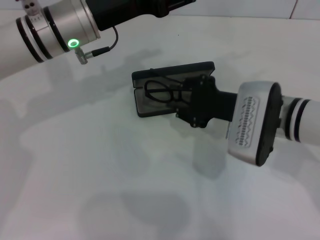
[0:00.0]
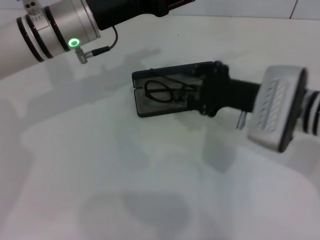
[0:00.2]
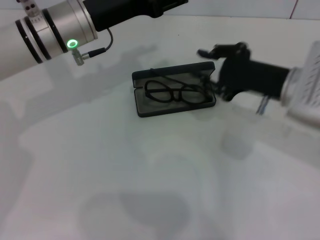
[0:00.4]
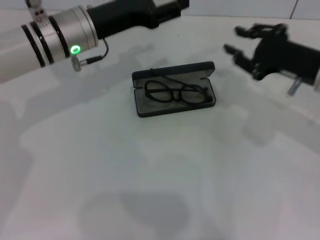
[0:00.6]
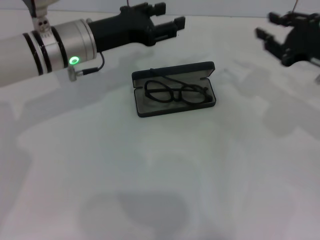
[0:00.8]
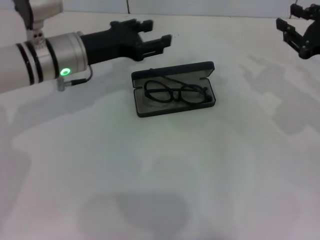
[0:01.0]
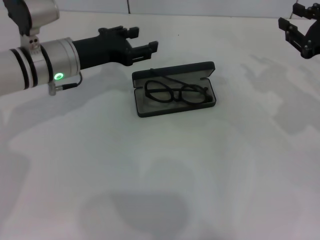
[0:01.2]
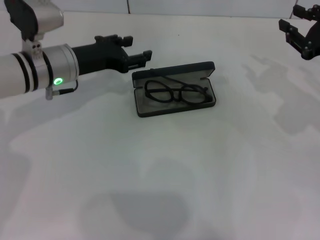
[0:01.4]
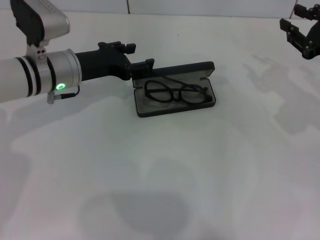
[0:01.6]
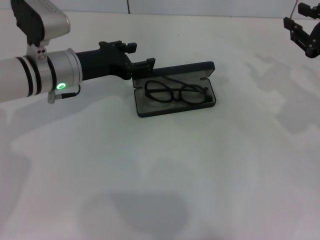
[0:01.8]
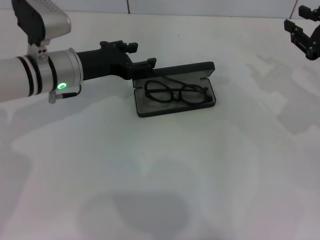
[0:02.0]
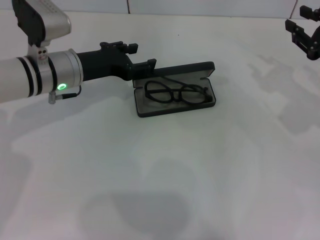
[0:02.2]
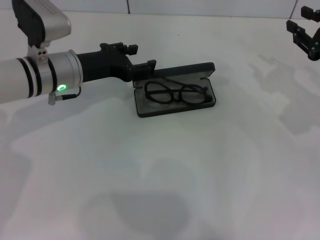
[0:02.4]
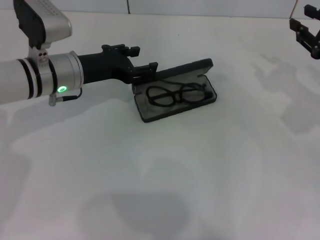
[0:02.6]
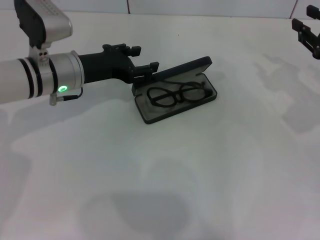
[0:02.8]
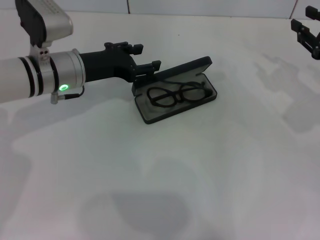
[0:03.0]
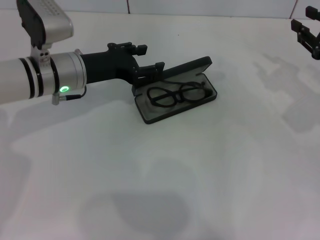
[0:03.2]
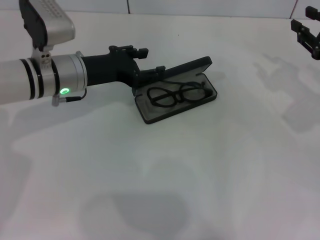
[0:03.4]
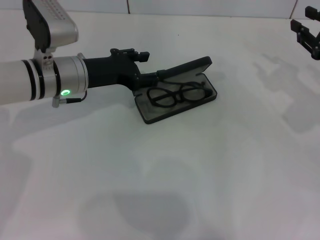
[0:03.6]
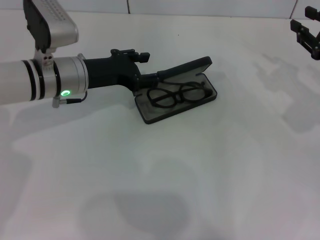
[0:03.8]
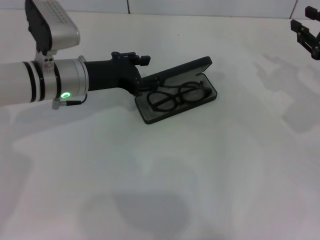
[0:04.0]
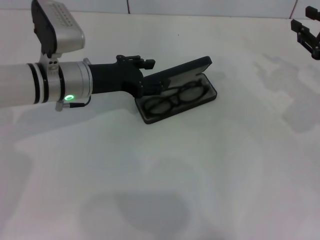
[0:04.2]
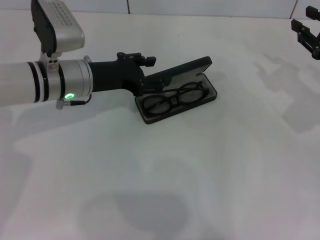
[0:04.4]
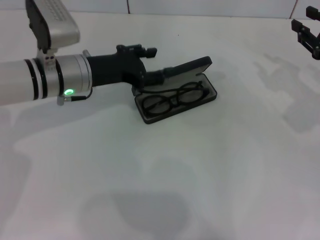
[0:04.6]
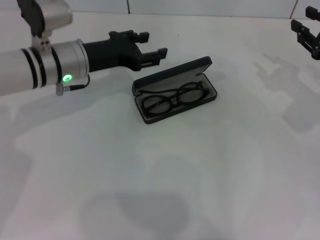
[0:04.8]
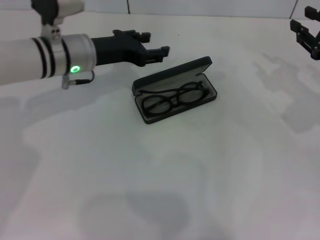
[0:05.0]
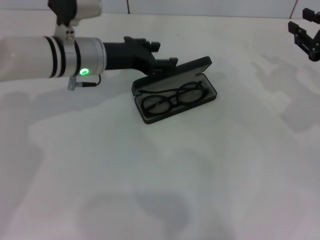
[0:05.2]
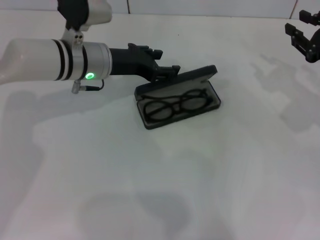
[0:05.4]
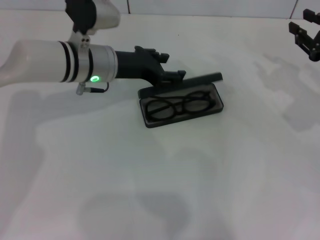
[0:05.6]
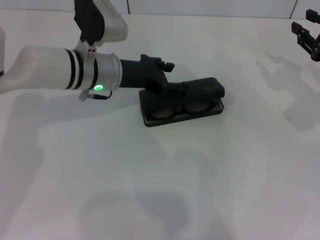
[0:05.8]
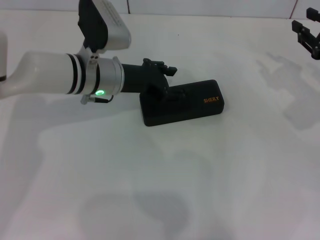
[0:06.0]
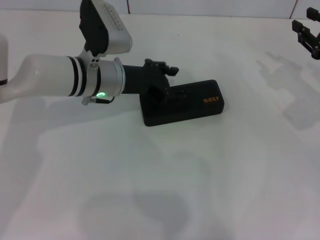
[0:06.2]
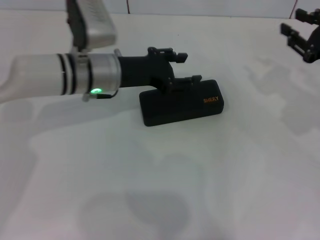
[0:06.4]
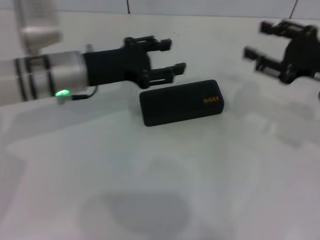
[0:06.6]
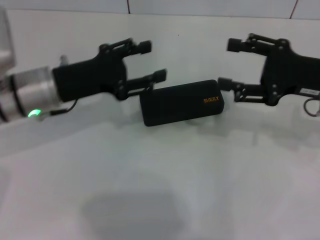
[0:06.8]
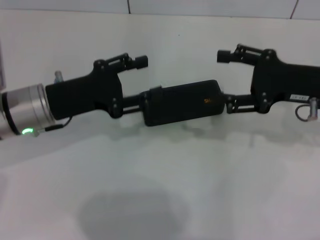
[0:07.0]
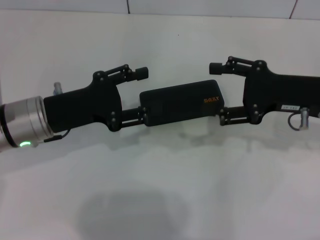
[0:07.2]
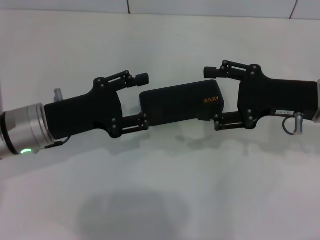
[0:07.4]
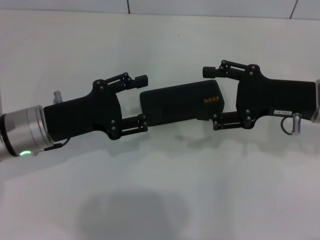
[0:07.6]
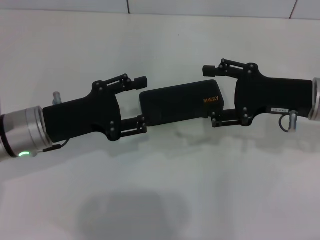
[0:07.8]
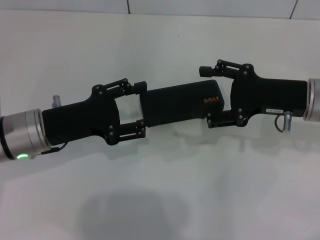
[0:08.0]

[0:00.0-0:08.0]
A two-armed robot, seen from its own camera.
Step, 0:00.0 to 0:04.2: Put the glasses into the case with your right hand.
Step, 0:04.6 to 0:06.2: Close the glasses case with your left hand.
0:00.0 to 0:01.6: The right gripper travels to the right by some 15 cm; the left gripper shifts approximately 5 cm downward.
0:01.6 to 0:04.8: The grippers make only small movements.
0:04.8 to 0:06.4: The grippers stay close to where they were, moving slightly.
0:06.4 to 0:08.0: The right gripper travels to the left by about 10 cm, and opens, while the left gripper heads backward and to the left, covering roughly 15 cm.

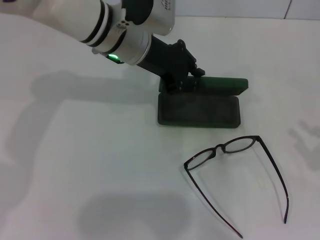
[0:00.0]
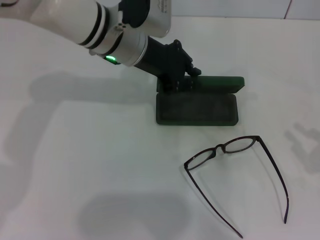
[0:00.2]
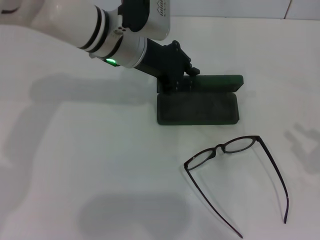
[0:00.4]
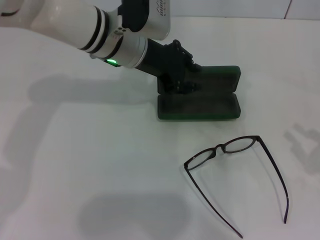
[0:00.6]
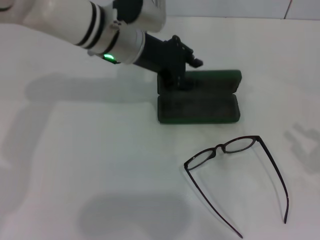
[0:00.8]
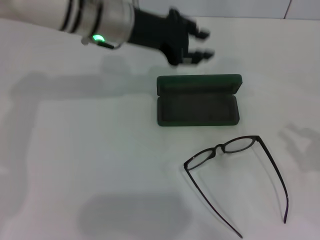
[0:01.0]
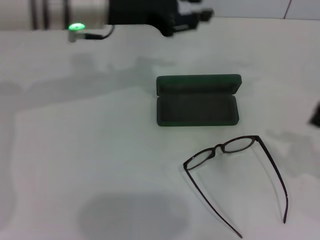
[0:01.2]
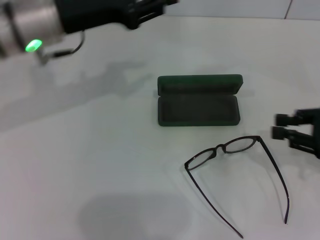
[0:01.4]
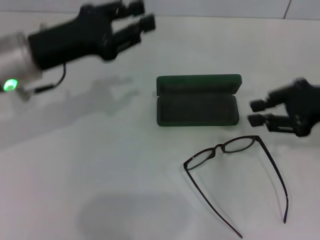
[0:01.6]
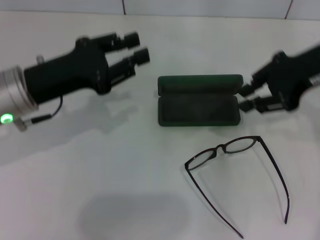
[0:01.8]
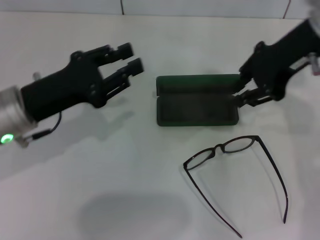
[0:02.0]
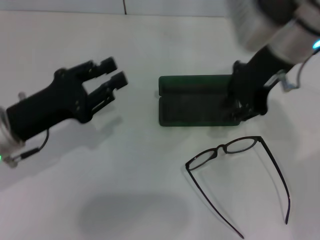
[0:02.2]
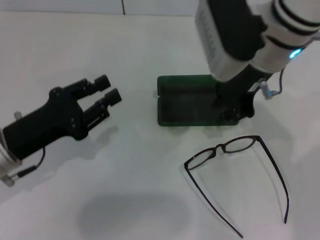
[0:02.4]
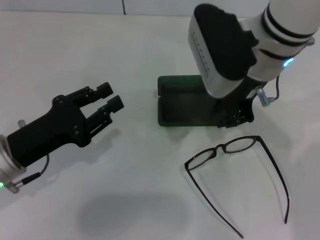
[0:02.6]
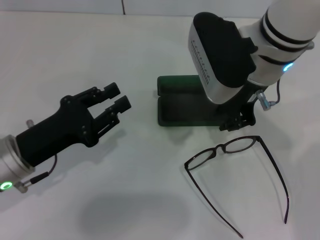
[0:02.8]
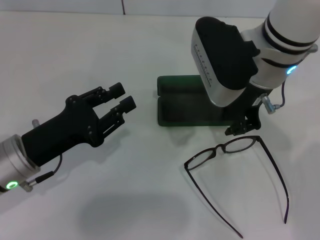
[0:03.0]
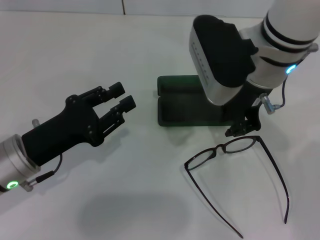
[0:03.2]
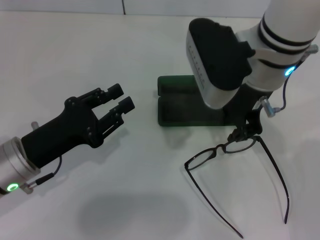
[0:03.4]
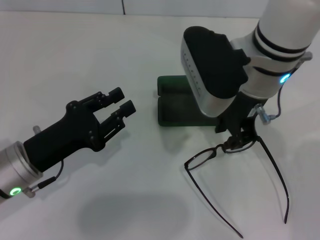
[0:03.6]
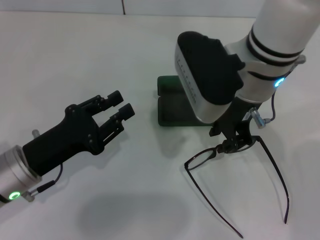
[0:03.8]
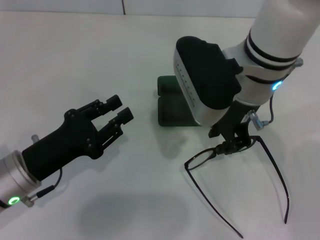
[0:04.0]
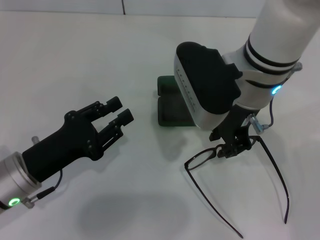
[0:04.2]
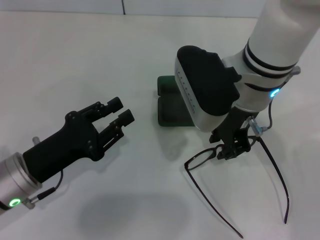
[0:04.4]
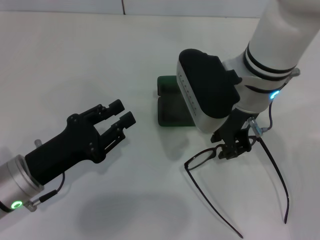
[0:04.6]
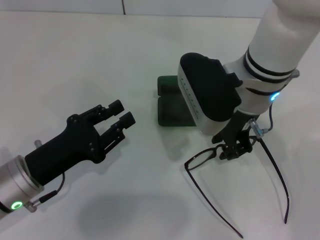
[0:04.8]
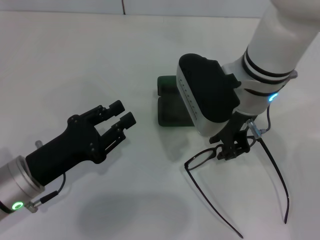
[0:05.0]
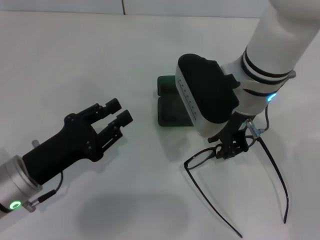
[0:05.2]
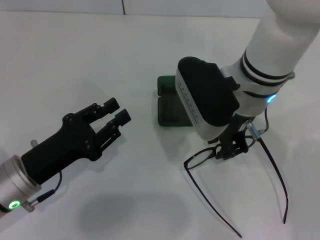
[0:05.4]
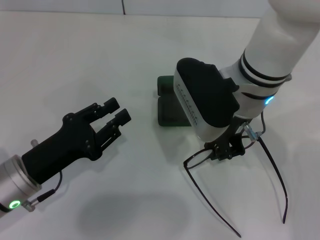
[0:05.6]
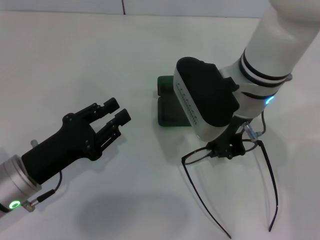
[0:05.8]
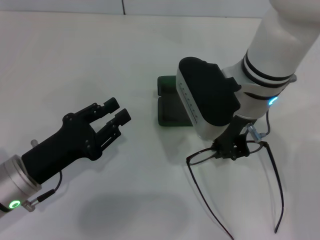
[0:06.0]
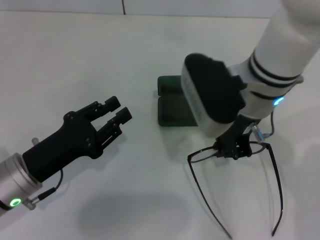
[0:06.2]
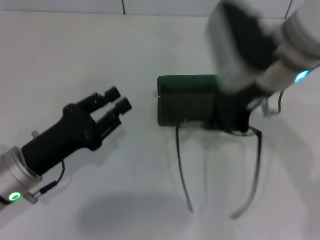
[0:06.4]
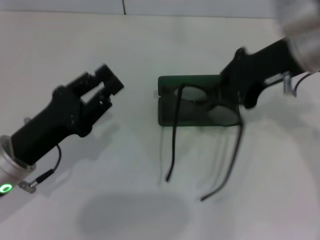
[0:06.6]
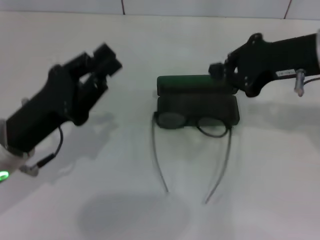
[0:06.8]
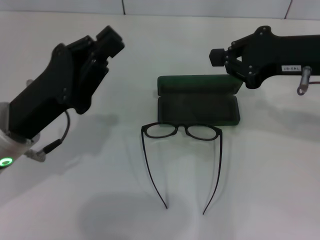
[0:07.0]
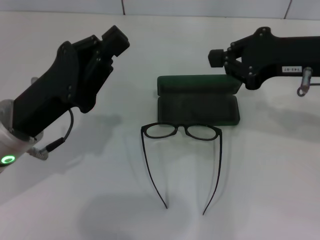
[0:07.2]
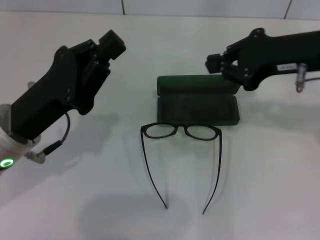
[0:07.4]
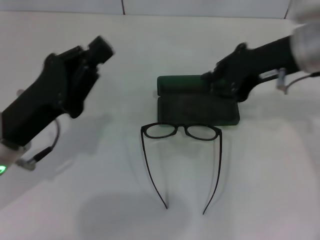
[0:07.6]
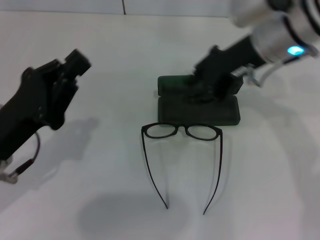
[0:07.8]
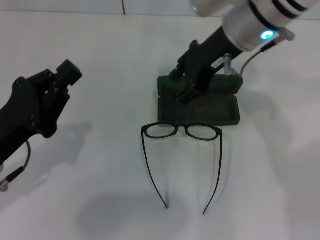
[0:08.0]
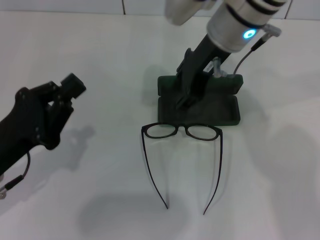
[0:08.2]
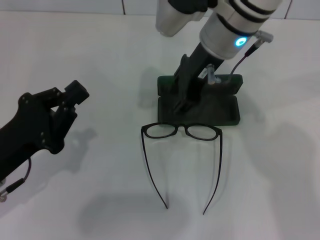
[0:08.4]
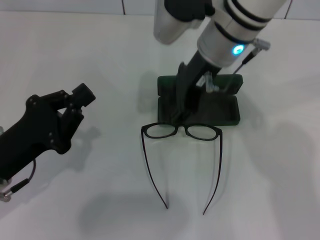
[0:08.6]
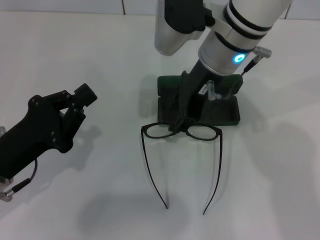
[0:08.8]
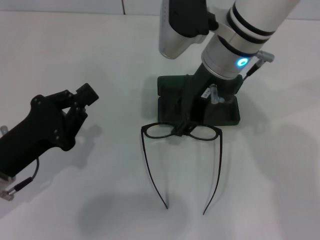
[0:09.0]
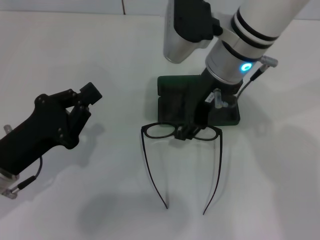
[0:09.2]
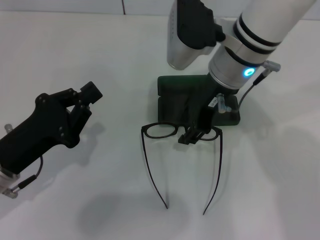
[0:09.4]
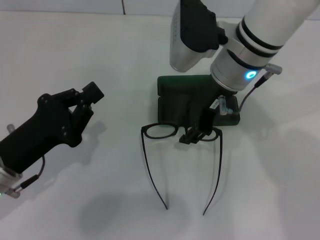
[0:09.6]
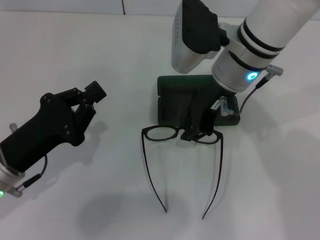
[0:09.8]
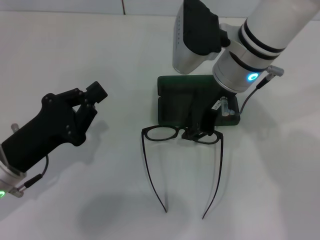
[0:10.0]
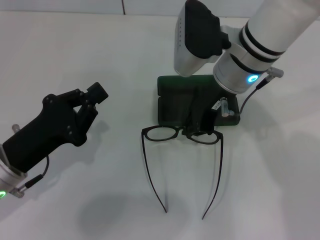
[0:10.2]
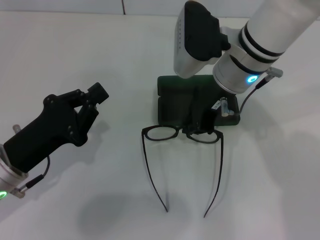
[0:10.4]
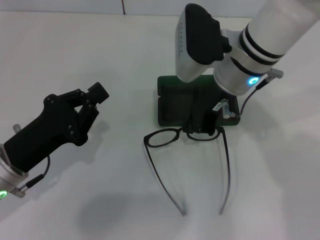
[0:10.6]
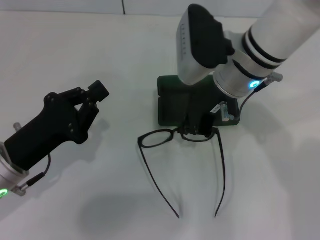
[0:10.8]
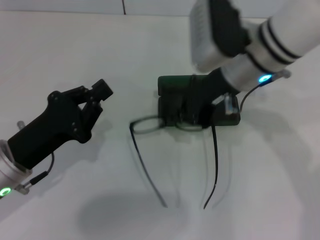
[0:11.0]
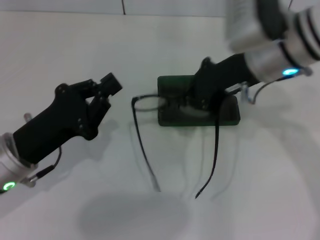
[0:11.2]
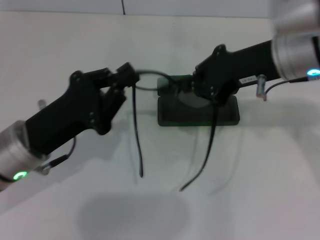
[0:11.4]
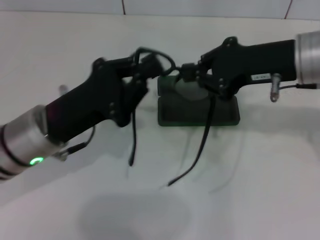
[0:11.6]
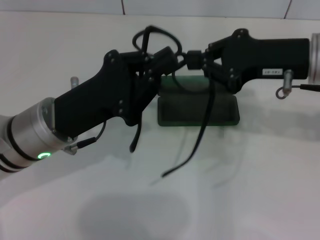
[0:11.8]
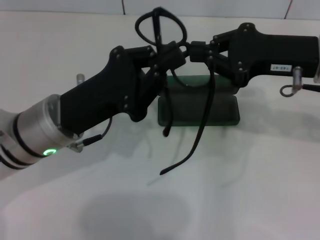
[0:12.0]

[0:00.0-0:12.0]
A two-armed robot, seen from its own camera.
Step, 0:00.8 to 0:10.6: Grab the eyeglass frame with your right hand.
0:00.0 to 0:01.6: The right gripper is displaced forward, to the left and upward by approximately 20 cm; the left gripper moves to the left and backward, roughly 15 cm.
0:01.6 to 0:03.0: The left gripper is displaced downward and backward by roughly 15 cm. Meanwhile the right gripper shifts about 15 cm to the left.
0:04.4 to 0:06.0: The grippers make only small movements.
0:06.0 to 0:07.6: The left gripper moves upward, roughly 5 cm, and closes; the right gripper is displaced to the right by some 10 cm.
0:07.6 to 0:09.0: The left gripper shifts by approximately 5 cm, while the right gripper heads to the left, covering about 10 cm, and opens its fingers.
0:09.0 to 0:10.4: The right gripper closes.
0:10.4 to 0:12.0: The right gripper heads to the right, covering roughly 15 cm; the left gripper heads to the right, upward and forward, covering some 10 cm.

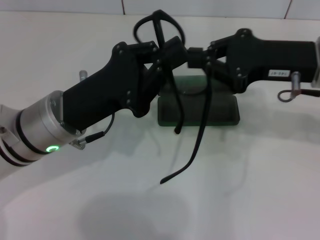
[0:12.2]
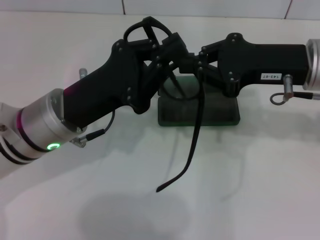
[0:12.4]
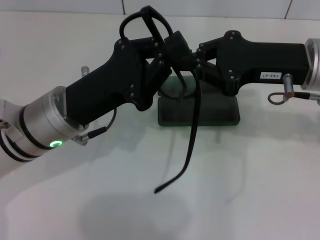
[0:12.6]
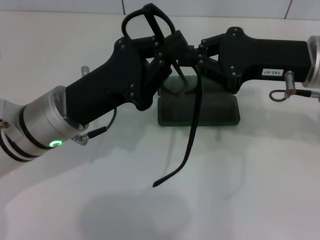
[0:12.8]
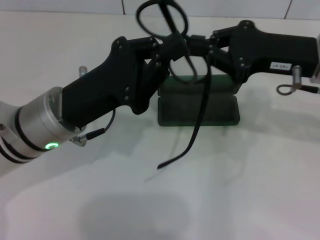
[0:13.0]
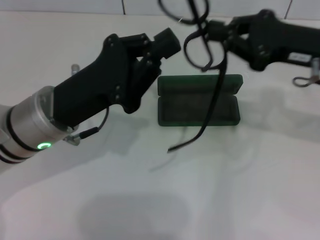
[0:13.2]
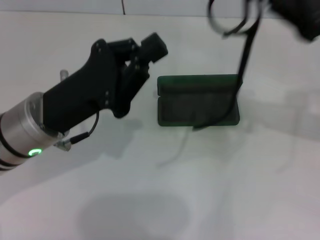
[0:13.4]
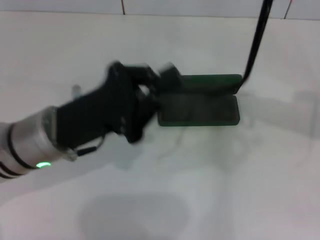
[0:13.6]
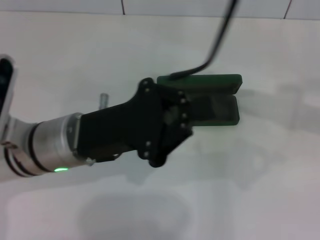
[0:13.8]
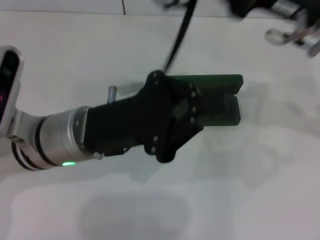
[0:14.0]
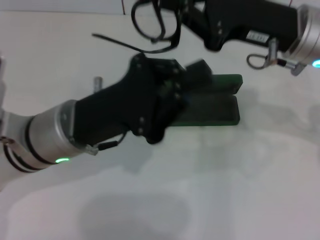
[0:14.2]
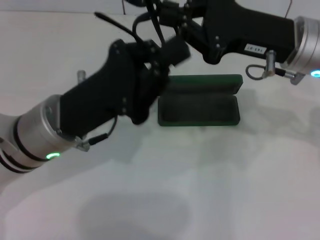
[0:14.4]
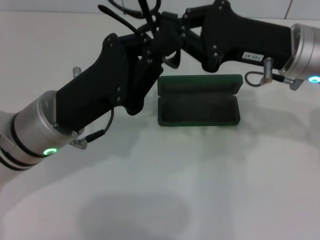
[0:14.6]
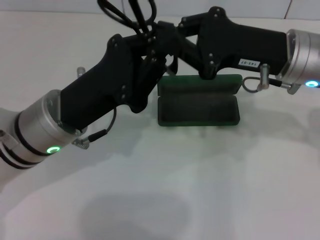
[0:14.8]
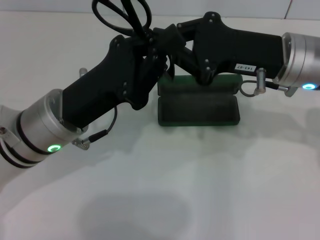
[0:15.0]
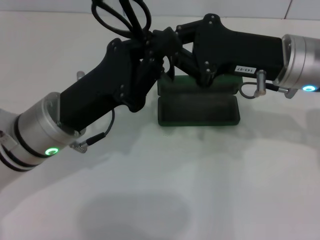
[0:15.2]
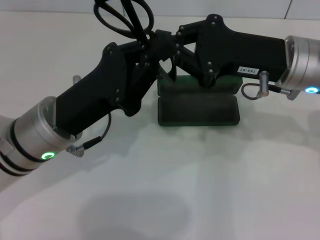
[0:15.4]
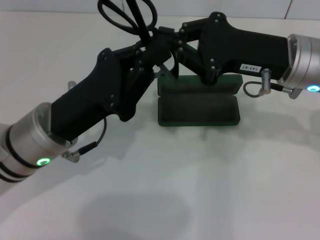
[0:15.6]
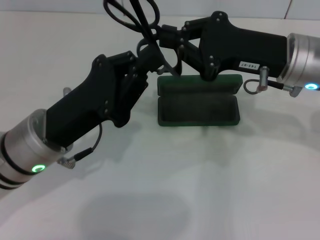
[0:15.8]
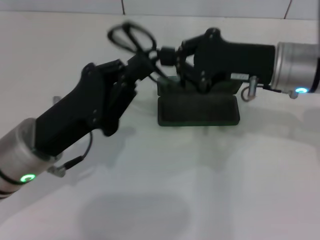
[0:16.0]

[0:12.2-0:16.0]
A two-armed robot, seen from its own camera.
Step, 0:12.2 to 0:15.0: Fold the frame with your left hand.
0:12.2 to 0:13.4: The right gripper goes about 5 cm to the right.
0:13.4 to 0:14.8: The right gripper moves to the left, about 10 cm.
